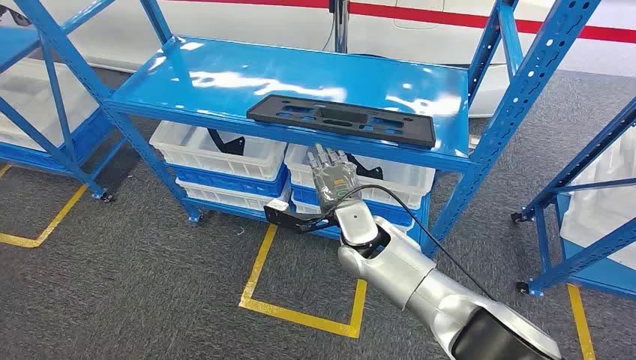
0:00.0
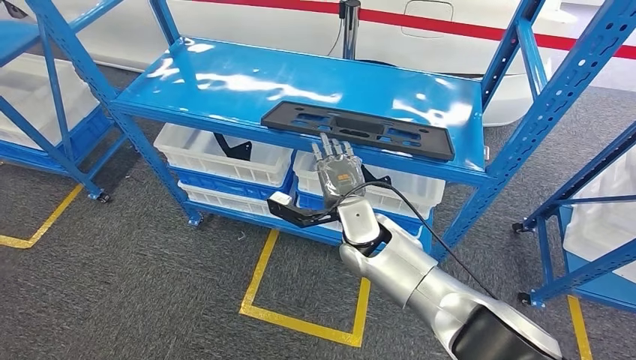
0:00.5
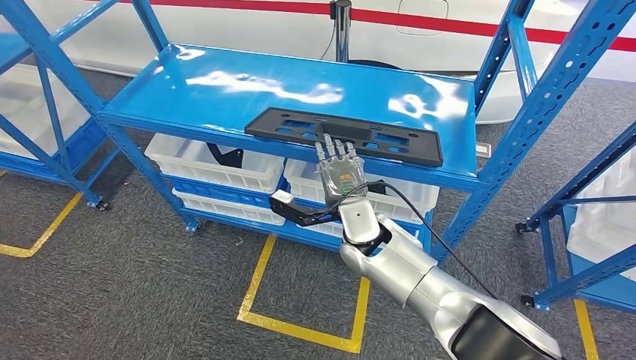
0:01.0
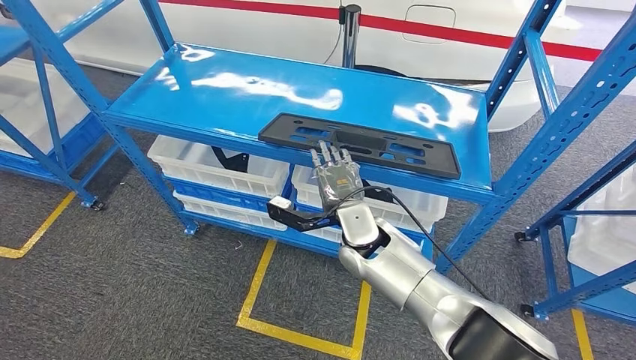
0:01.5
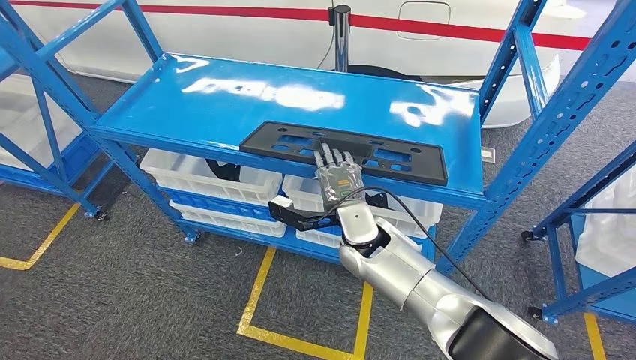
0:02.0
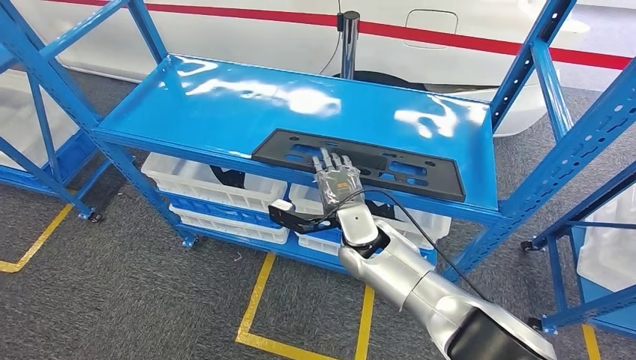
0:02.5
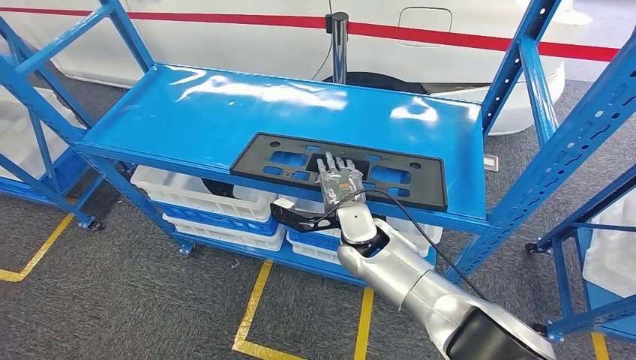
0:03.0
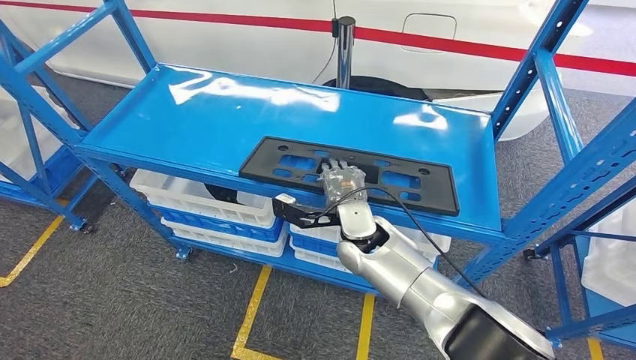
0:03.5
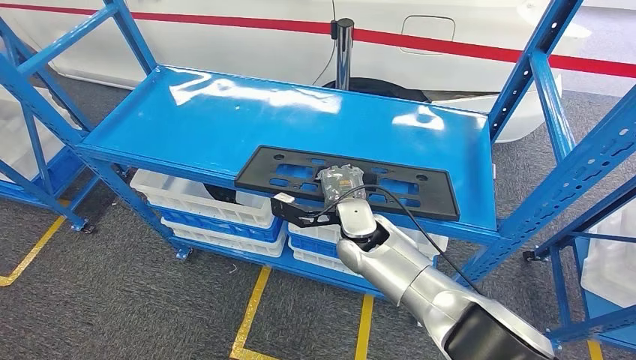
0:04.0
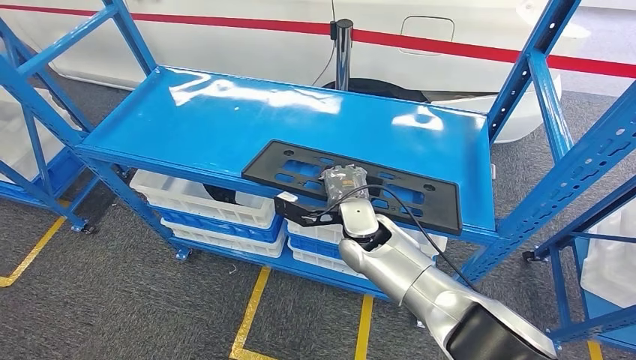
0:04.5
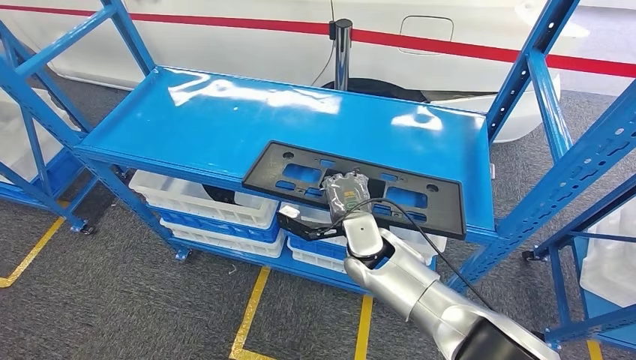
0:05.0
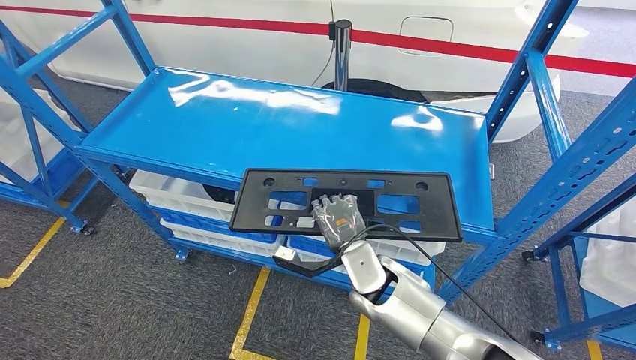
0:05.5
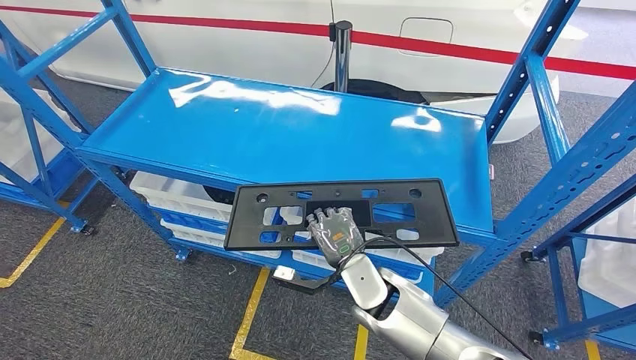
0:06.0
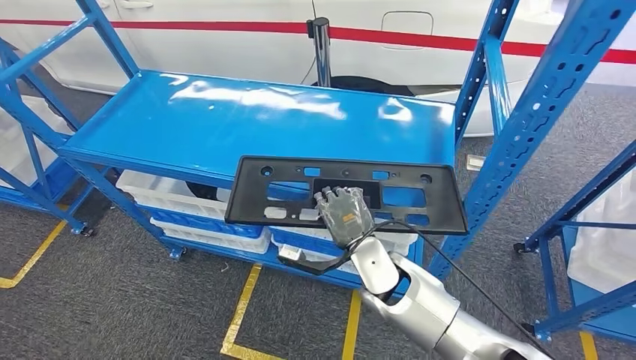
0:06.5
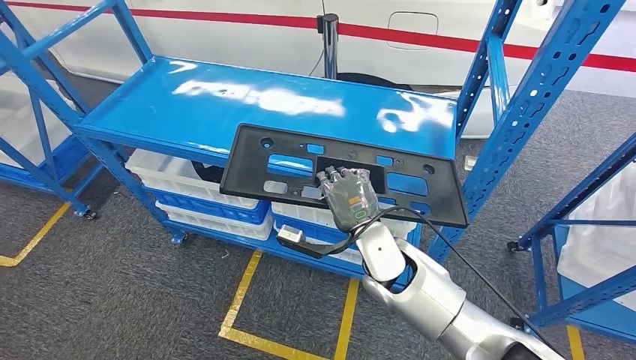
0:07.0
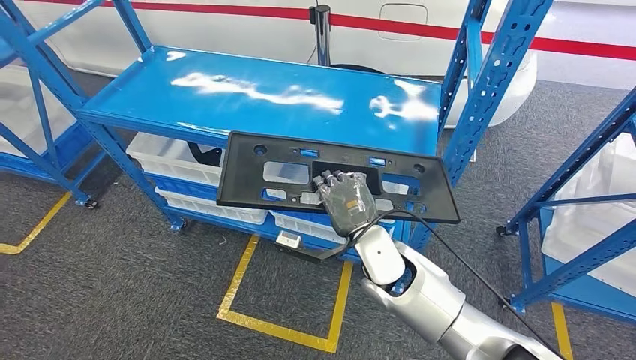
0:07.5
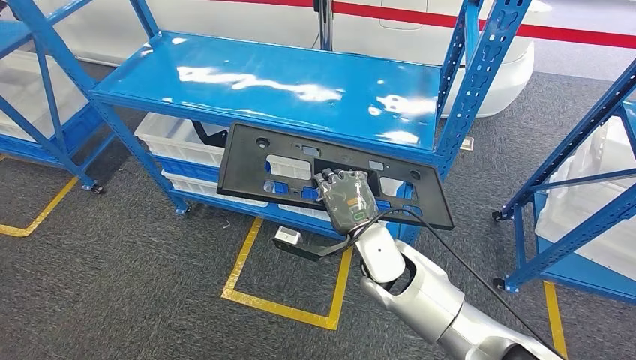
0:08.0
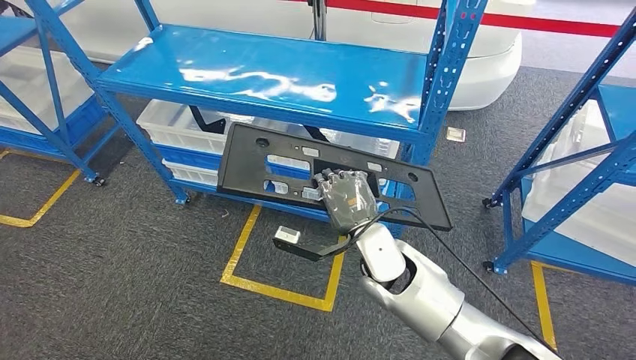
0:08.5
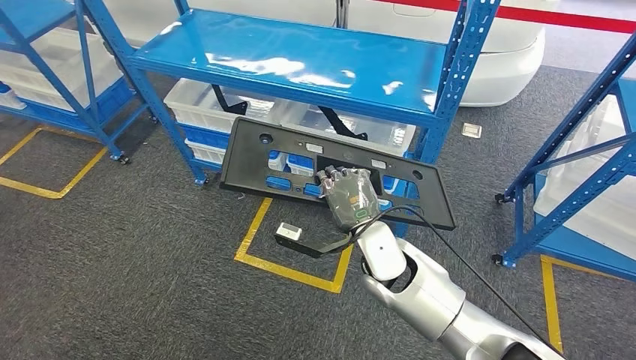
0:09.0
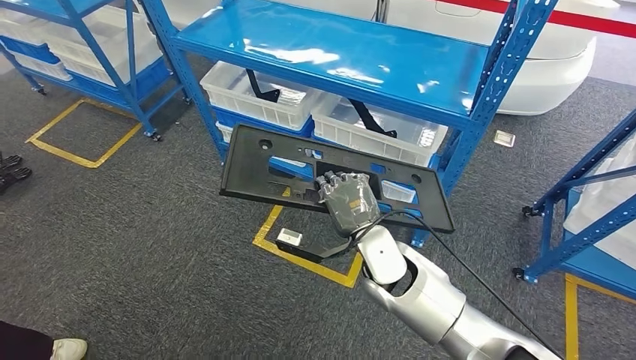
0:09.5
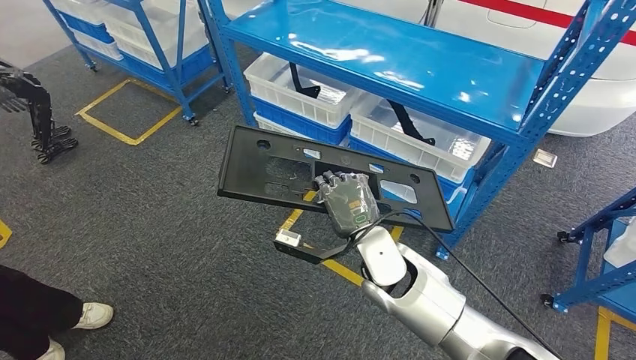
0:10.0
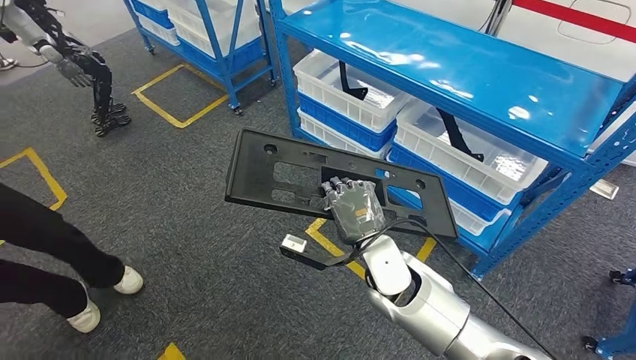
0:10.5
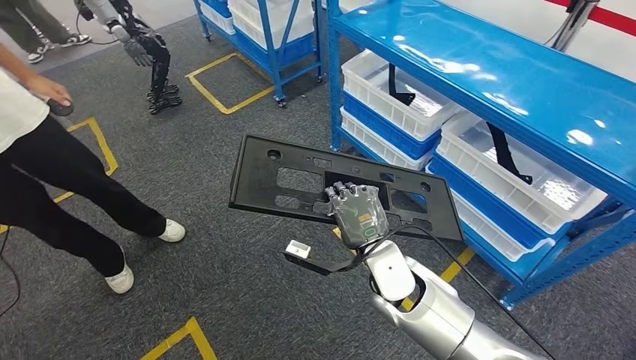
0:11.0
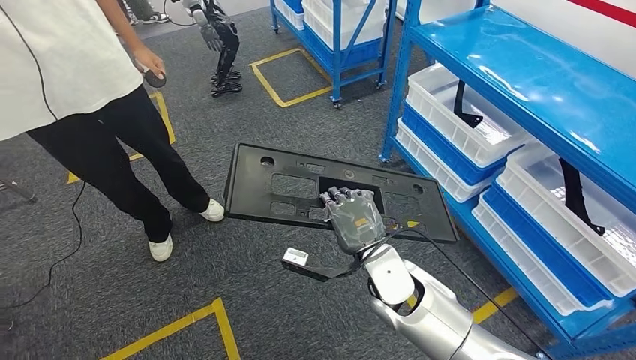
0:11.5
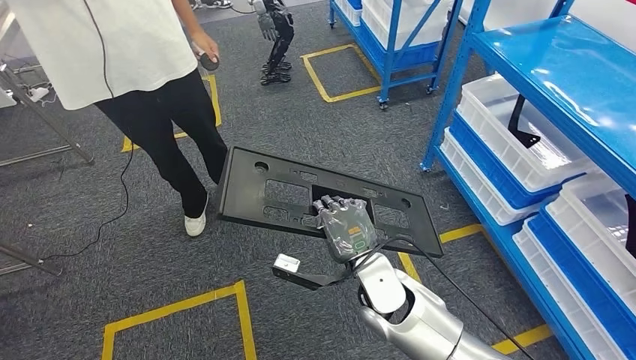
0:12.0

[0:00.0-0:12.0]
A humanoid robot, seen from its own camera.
Step, 0:00.0 to 0:08.0: Pick up the large material from the shelf.

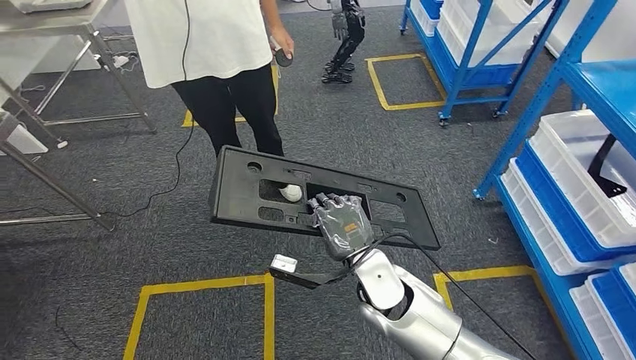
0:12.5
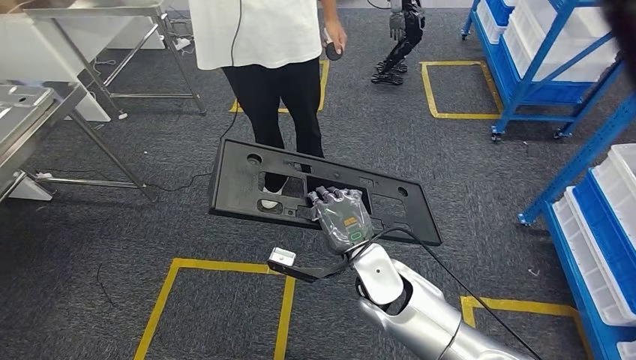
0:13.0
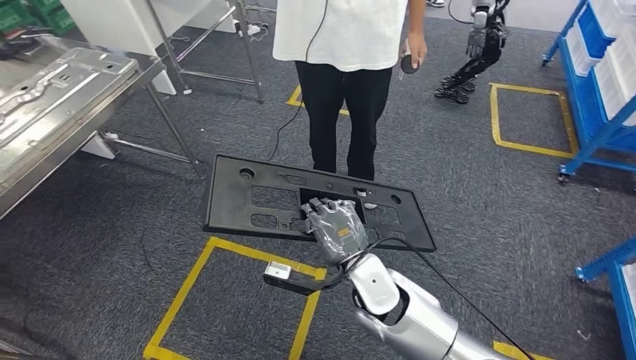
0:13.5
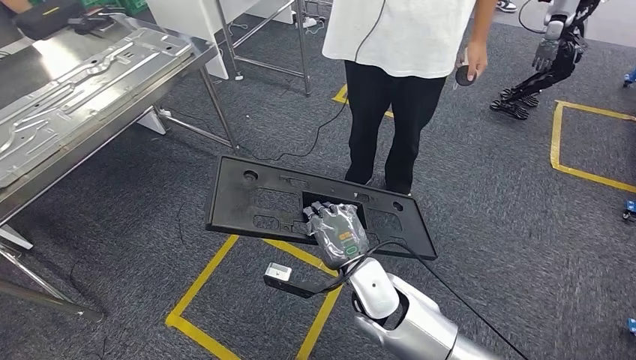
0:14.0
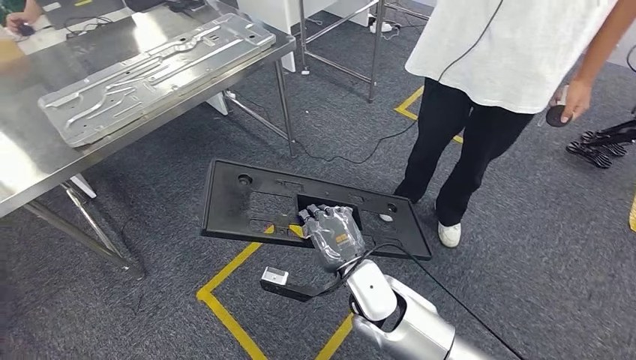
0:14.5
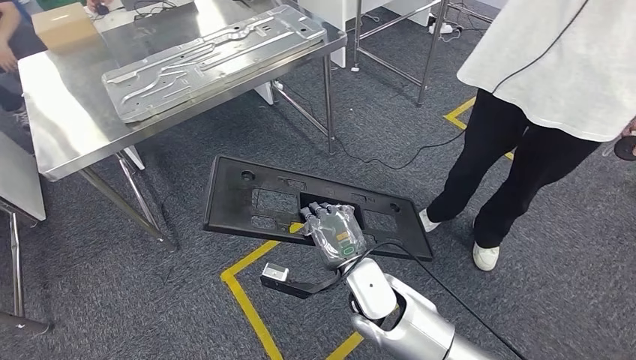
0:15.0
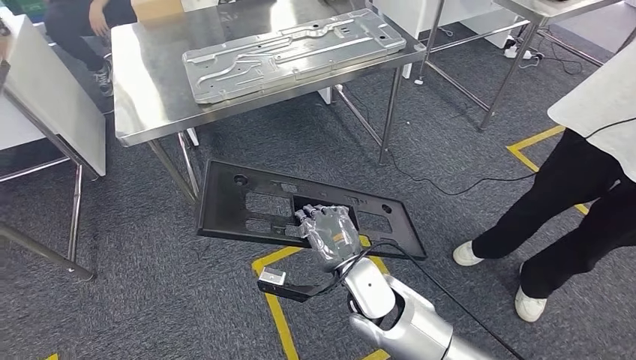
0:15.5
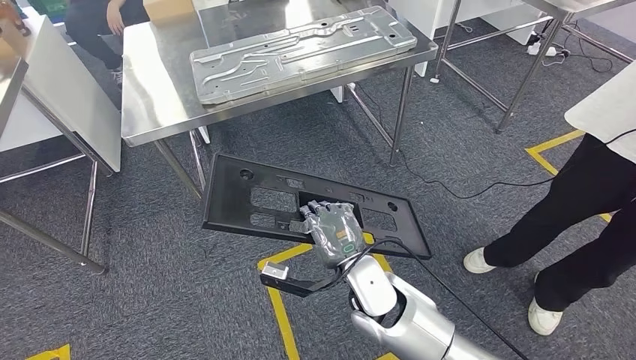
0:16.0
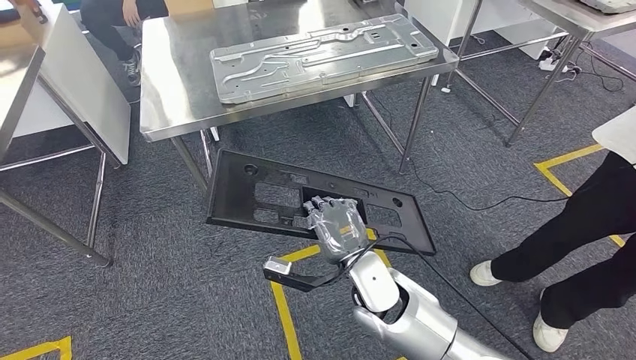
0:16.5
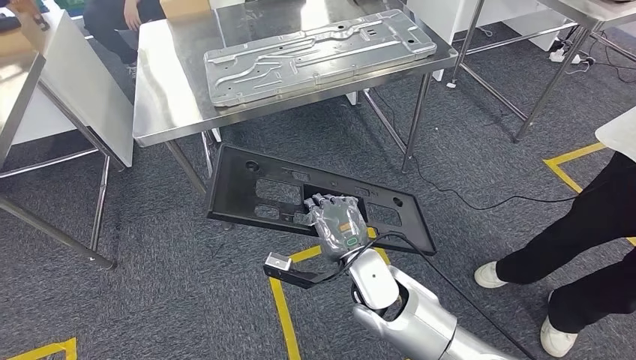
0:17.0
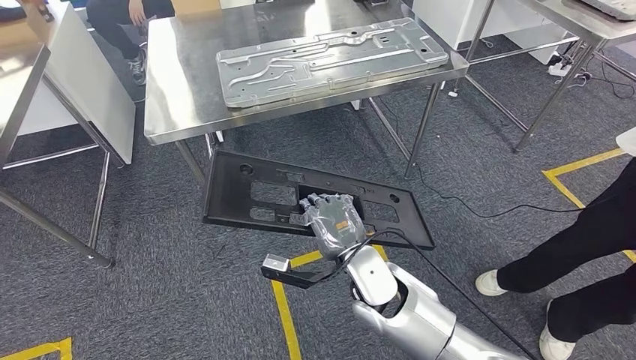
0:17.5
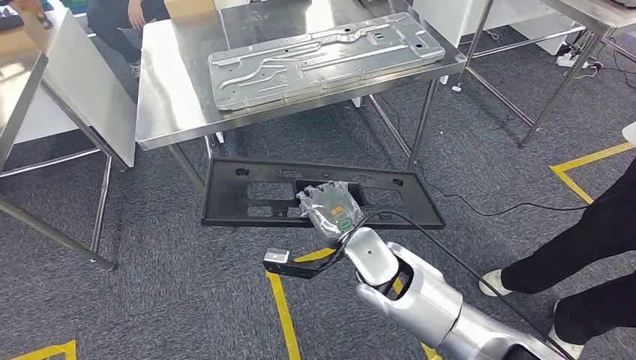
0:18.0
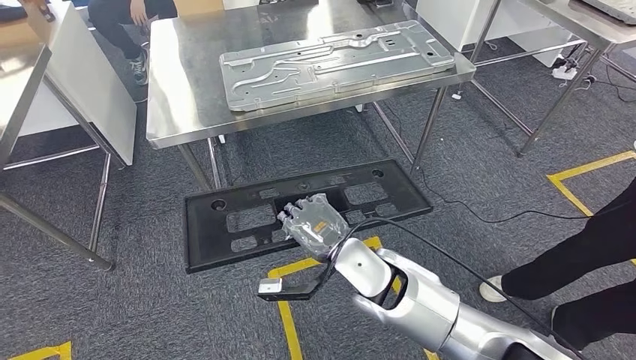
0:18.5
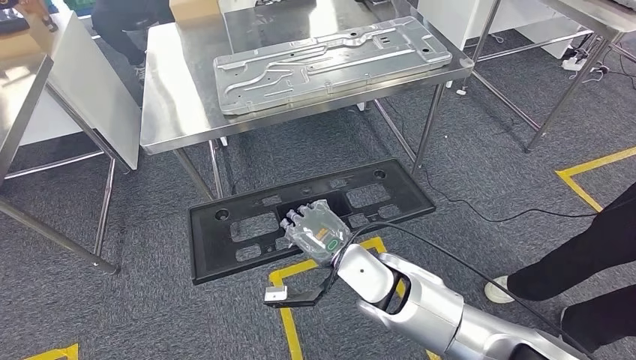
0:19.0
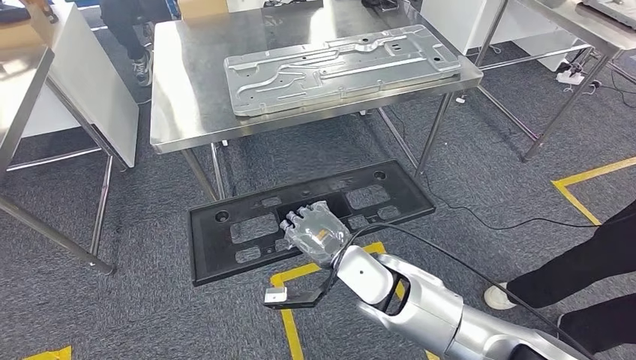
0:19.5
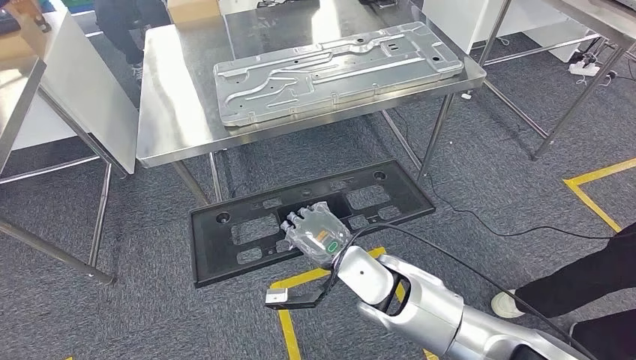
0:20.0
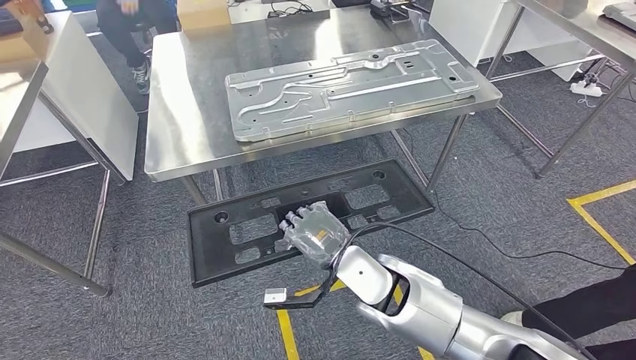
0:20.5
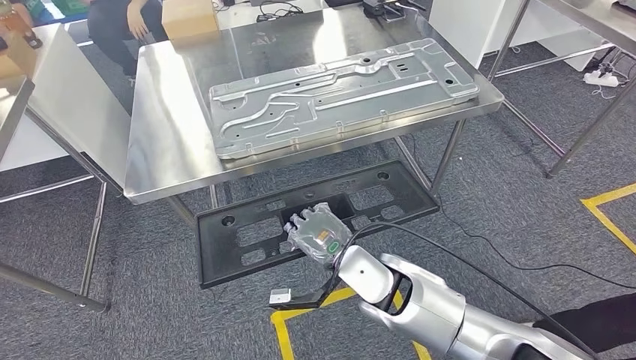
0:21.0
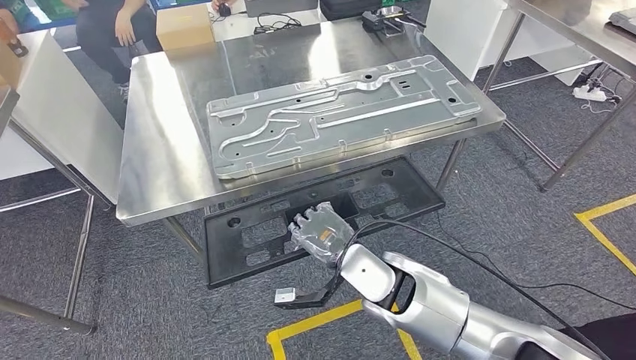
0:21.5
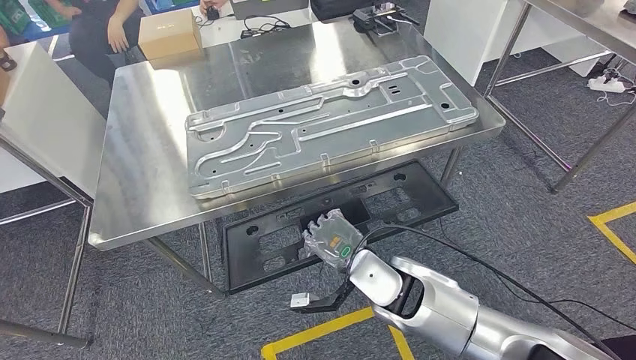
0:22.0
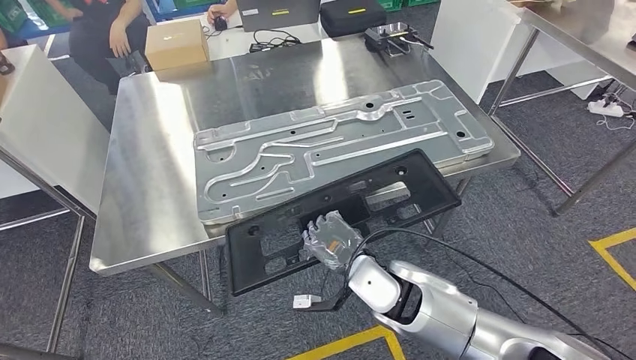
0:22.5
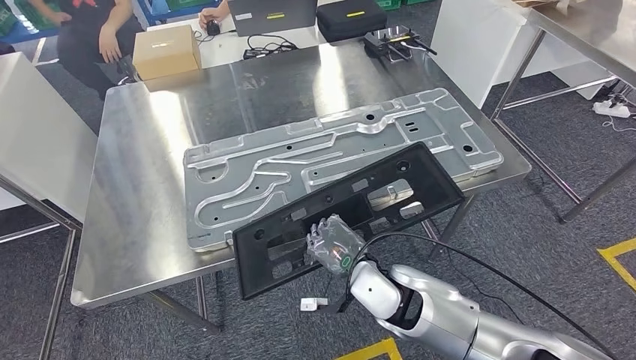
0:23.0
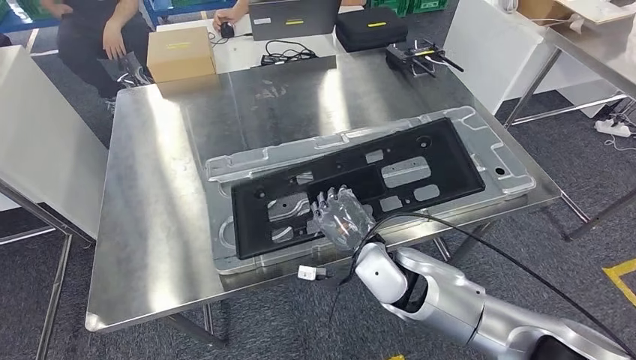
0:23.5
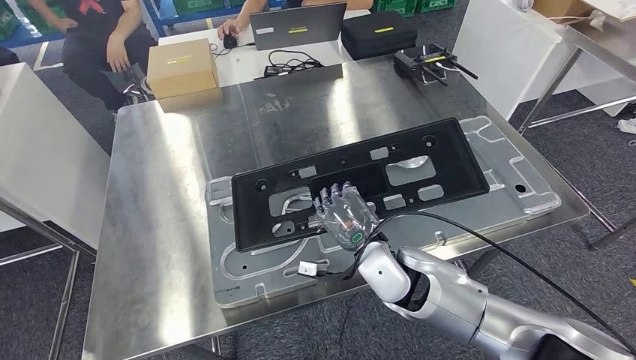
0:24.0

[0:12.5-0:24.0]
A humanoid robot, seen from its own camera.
Step, 0:12.5 to 0:22.0: Move the large material to the front of the workbench.
